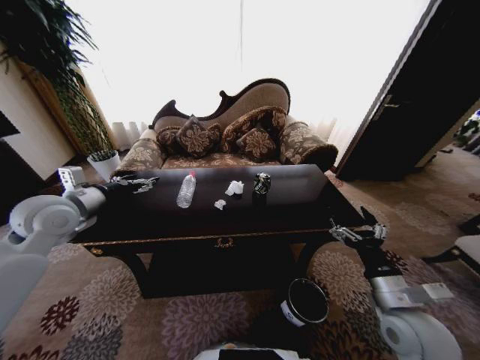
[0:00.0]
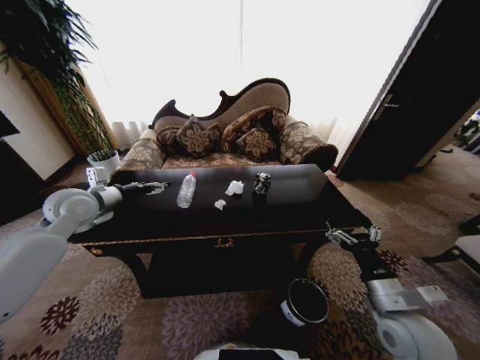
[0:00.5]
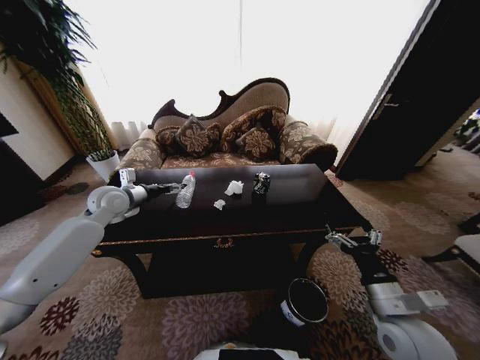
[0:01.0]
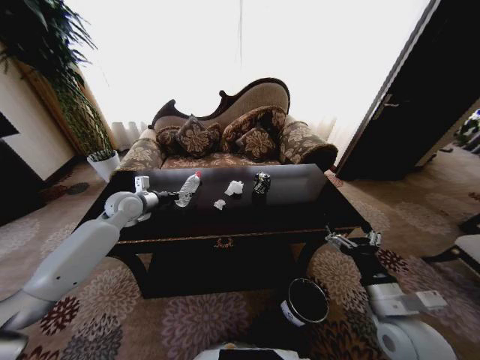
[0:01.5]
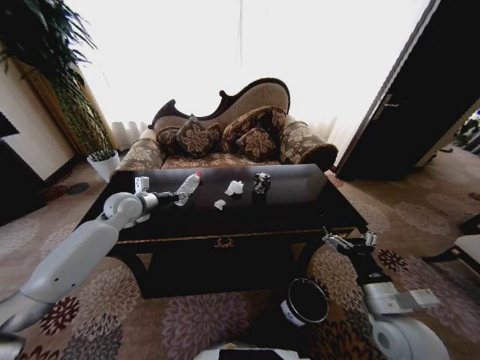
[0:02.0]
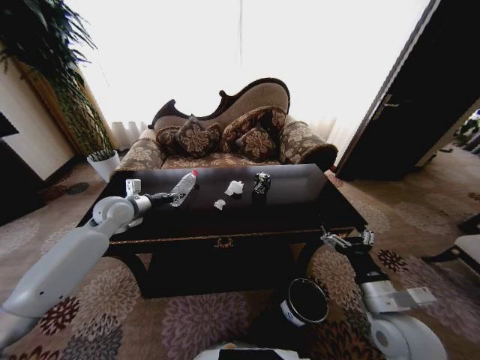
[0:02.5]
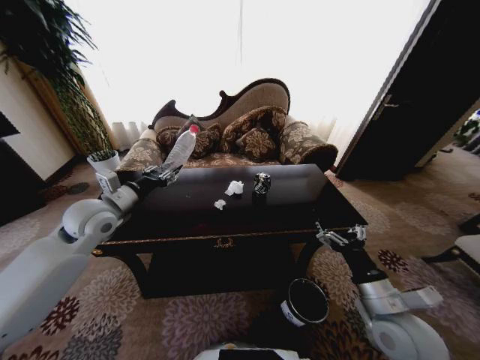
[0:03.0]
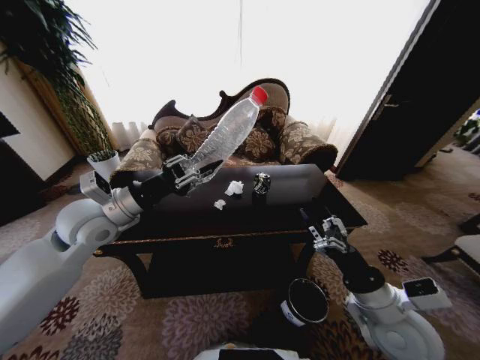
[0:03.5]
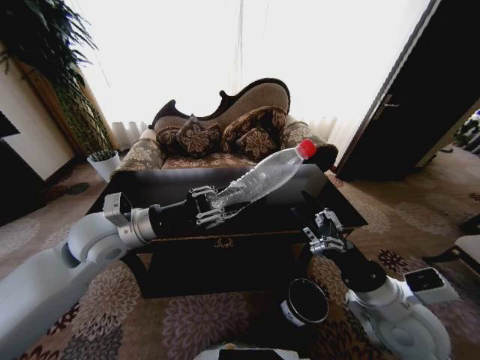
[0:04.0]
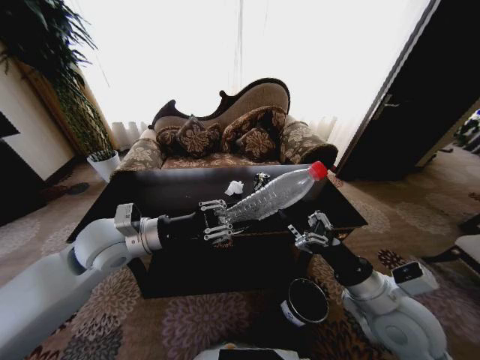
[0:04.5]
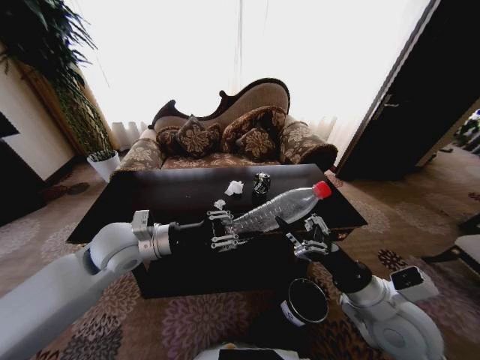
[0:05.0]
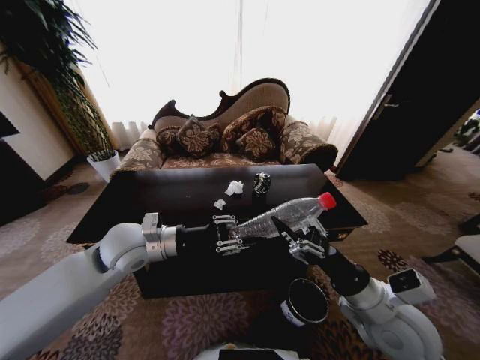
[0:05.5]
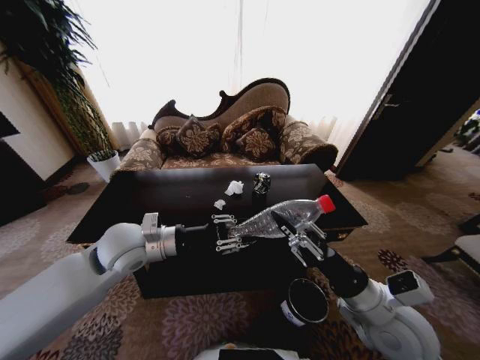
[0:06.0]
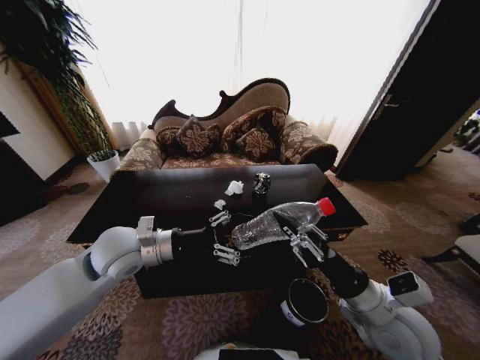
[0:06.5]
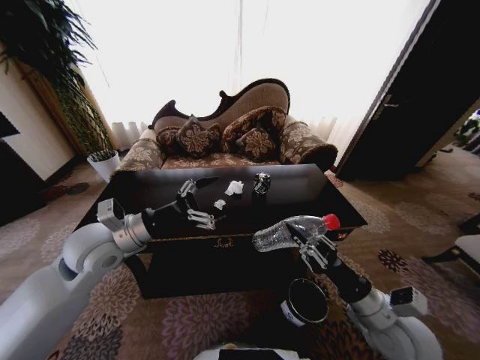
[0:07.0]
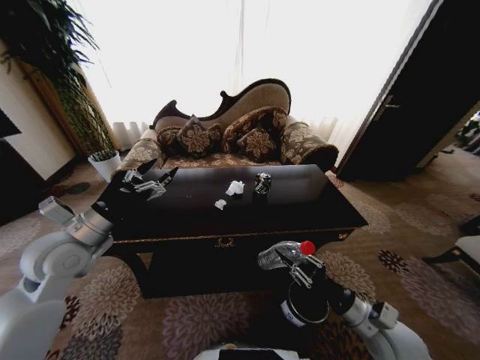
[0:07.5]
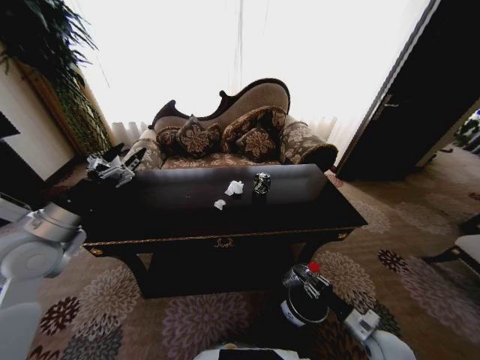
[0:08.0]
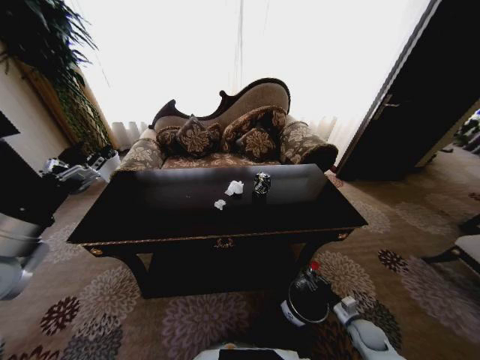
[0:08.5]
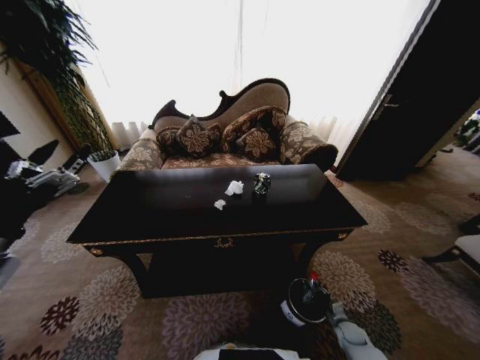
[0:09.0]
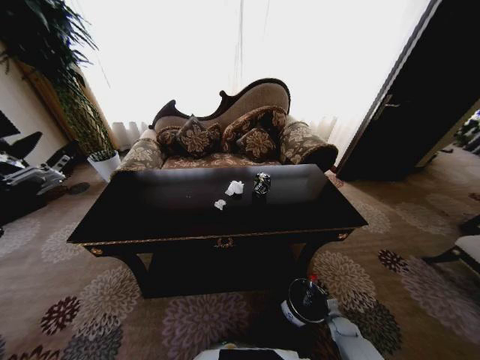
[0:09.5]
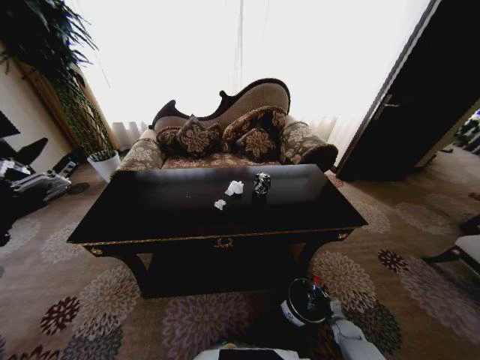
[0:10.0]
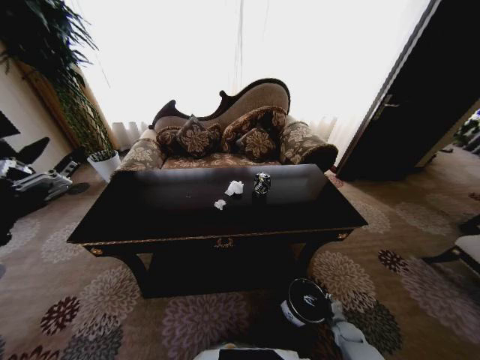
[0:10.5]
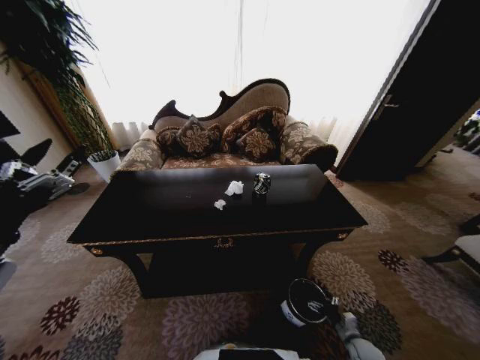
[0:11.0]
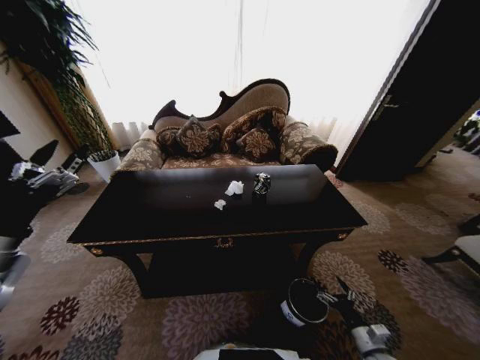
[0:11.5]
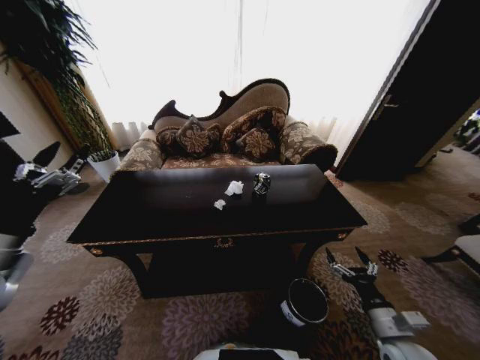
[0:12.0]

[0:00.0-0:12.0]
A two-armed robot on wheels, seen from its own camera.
Task of the whole recording: Move to the front of the table and place the trash on the table into the trash bin.
0:00.0 to 0:02.0: The left gripper goes some 15 cm forward, downward and to the right, and closes.
0:02.0 to 0:04.0: The left gripper goes about 20 cm backward, upward and to the right, and closes its fingers. Meanwhile the right gripper travels upward by some 5 cm.
0:04.0 to 0:06.0: The left gripper shifts by some 5 cm. Meanwhile the right gripper closes its fingers.
0:06.0 to 0:08.0: The right gripper moves downward and to the right, about 30 cm, while the left gripper is displaced to the left by roughly 15 cm, and opens up.
0:08.0 to 0:10.0: The right gripper goes roughly 20 cm downward, while the left gripper goes about 10 cm backward.
0:10.0 to 0:12.0: The right gripper travels upward by some 30 cm, and opens up.

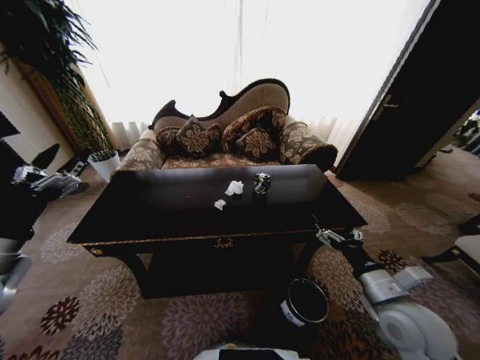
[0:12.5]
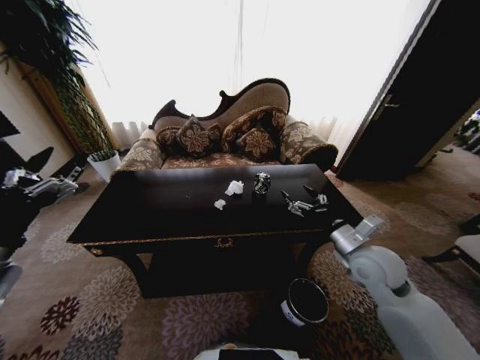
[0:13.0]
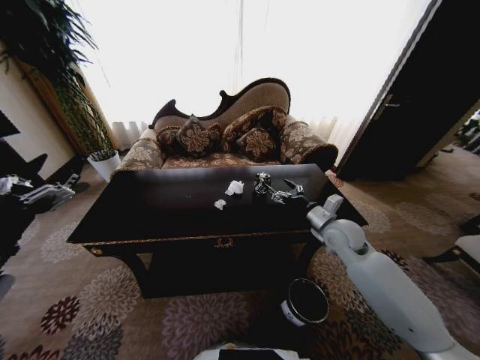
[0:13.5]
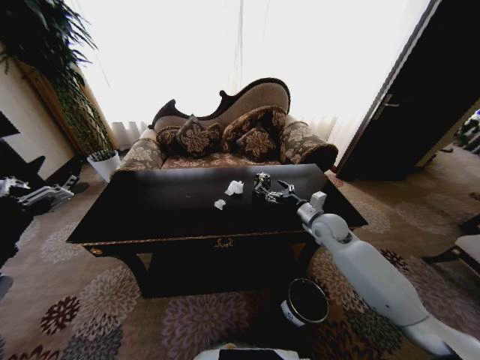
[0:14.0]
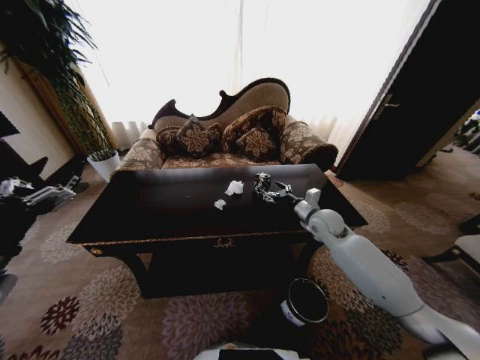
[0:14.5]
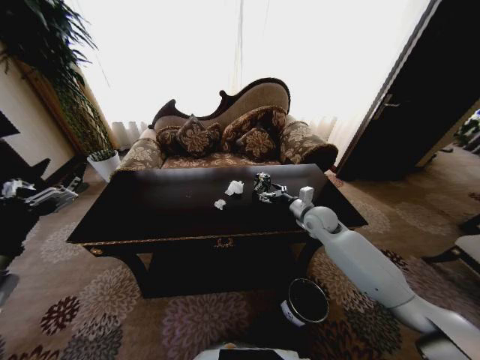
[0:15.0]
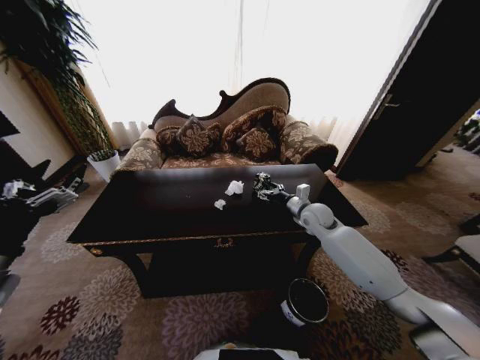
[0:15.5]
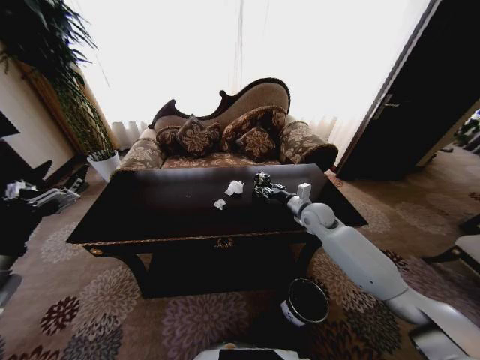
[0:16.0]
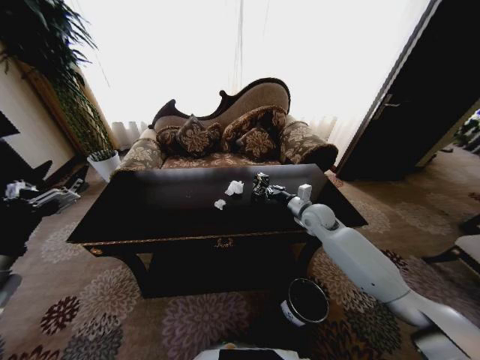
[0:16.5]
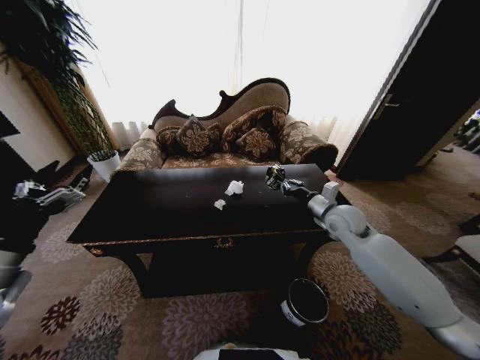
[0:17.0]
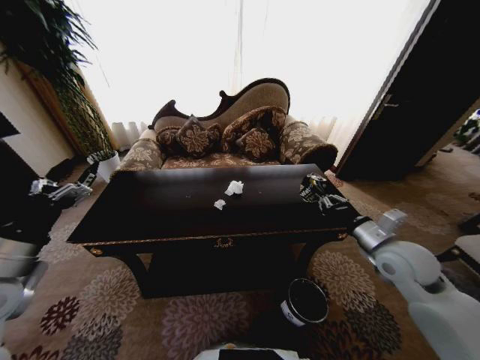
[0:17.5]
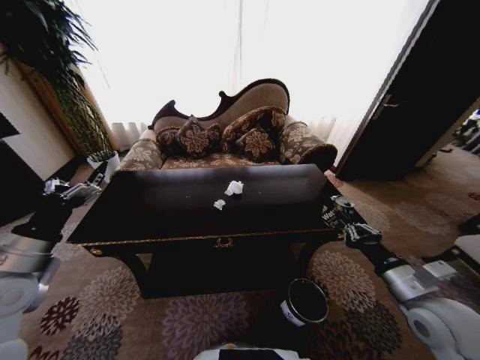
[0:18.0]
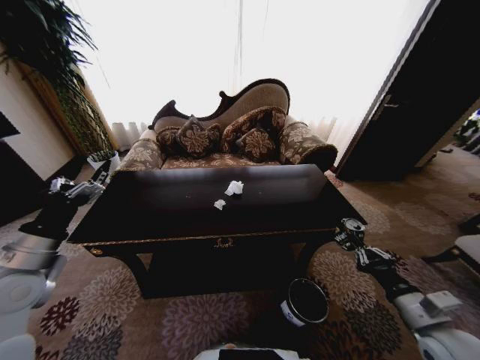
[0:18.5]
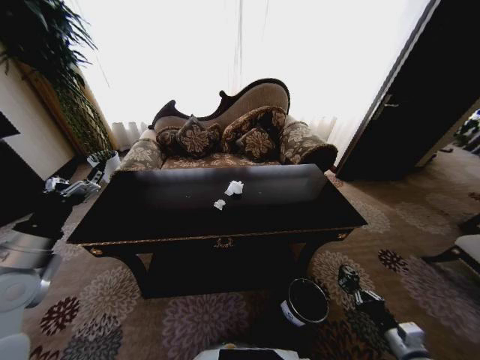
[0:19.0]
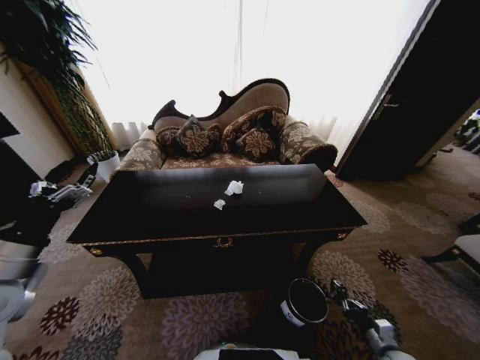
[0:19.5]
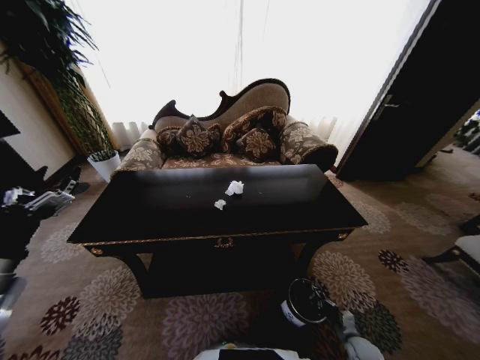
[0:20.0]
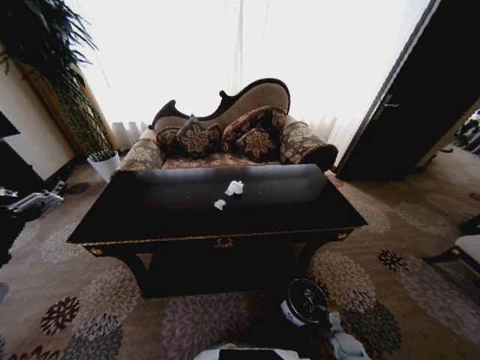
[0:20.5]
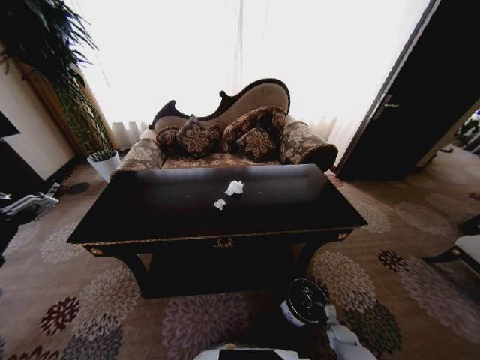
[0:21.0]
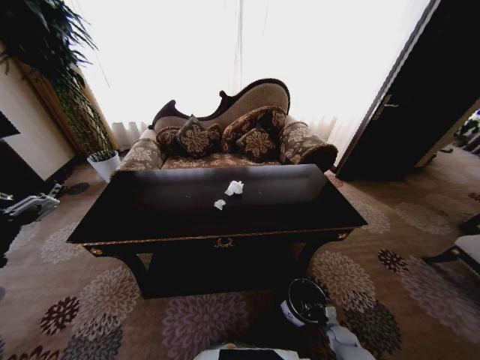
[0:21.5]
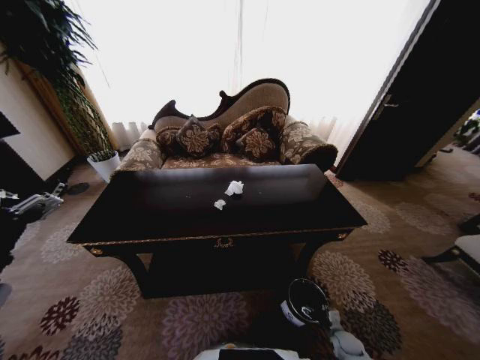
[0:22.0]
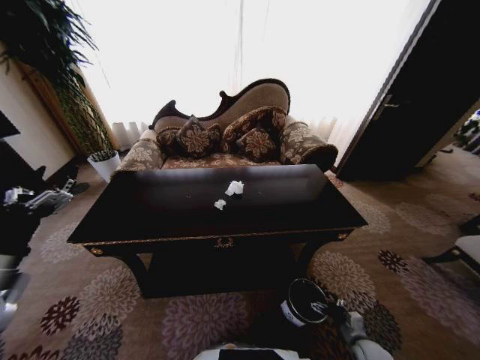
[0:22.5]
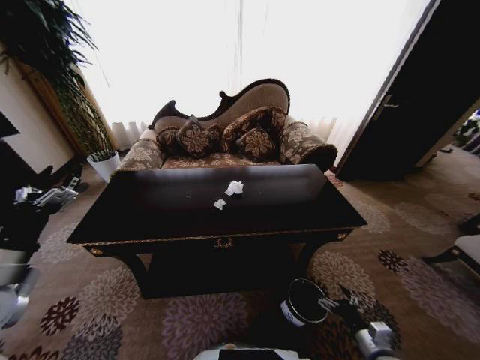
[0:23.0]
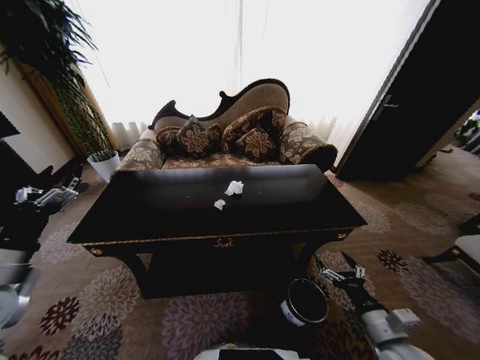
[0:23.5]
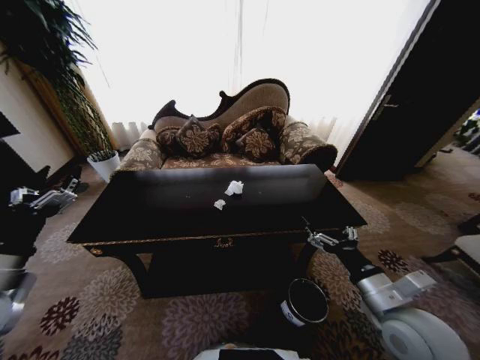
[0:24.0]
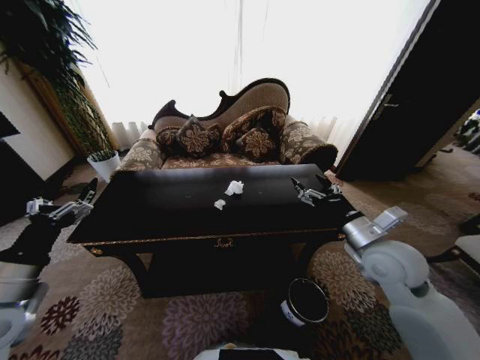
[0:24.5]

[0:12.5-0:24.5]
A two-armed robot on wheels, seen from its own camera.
Task of the whole recording: Move to the front of the table and place the trash on the table into the trash bin.
0:12.5 to 0:14.5: The right gripper travels forward by roughly 25 cm.
0:14.5 to 0:16.5: The right gripper closes up.
0:16.5 to 0:18.5: The left gripper goes some 5 cm forward, while the right gripper heads backward, covering approximately 35 cm.
0:18.5 to 0:20.5: The left gripper moves backward, about 5 cm, while the right gripper is displaced downward by approximately 40 cm.
0:20.5 to 0:22.5: The right gripper is displaced upward by approximately 10 cm, and opens.
0:22.5 to 0:24.5: The right gripper goes some 40 cm upward.

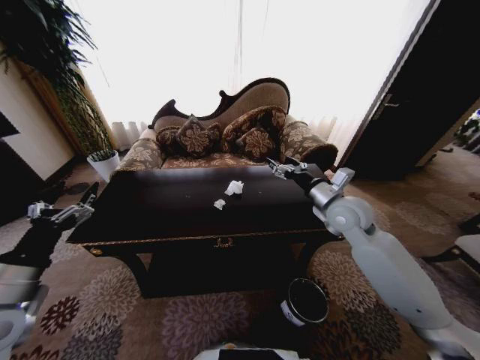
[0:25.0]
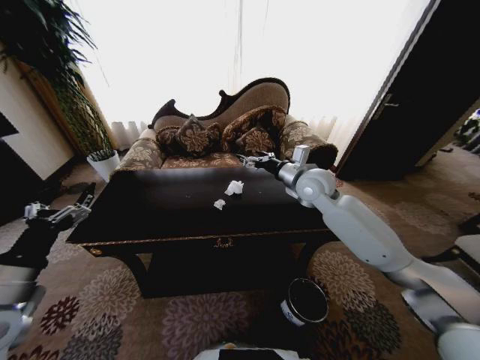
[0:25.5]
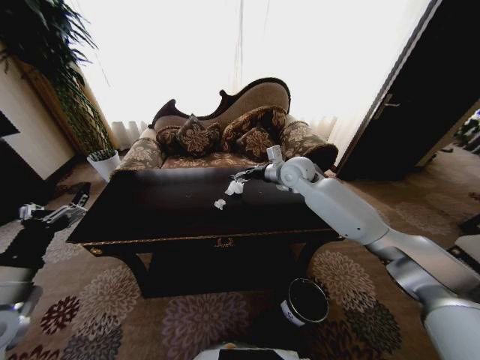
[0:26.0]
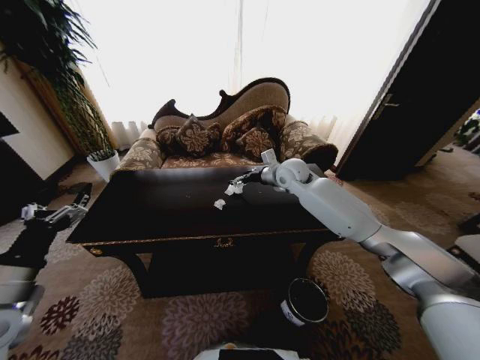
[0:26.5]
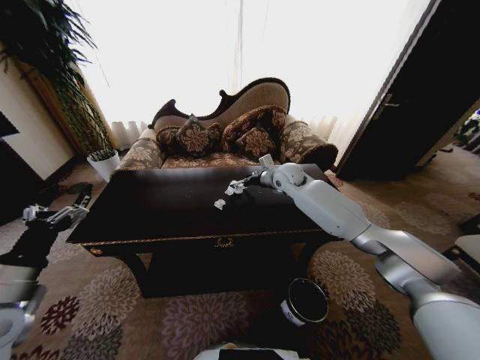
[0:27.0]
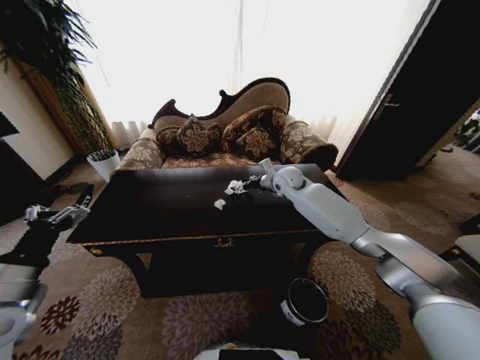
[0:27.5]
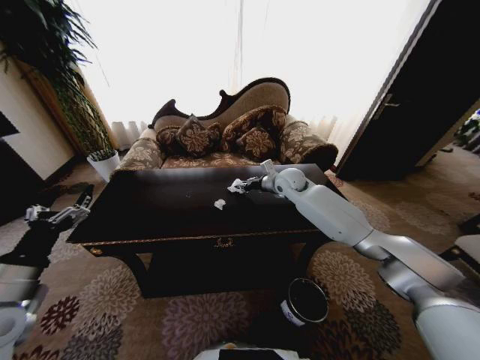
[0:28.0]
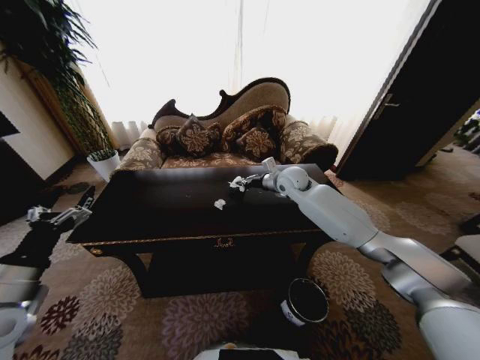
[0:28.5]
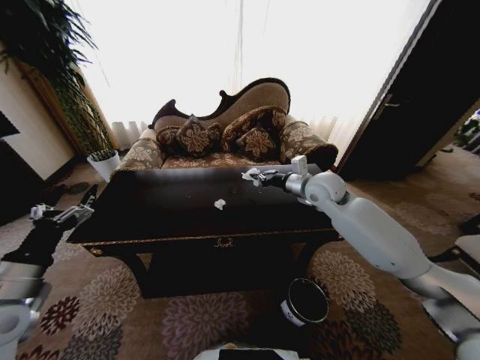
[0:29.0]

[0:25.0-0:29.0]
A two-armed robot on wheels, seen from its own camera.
Task of the whole recording: Move to the front of the table and place the trash on the table into the trash bin.
0:25.0 to 0:27.0: The right gripper travels forward and to the left by approximately 20 cm.
0:27.0 to 0:29.0: The right gripper travels backward and to the right by approximately 10 cm, and closes its fingers.
